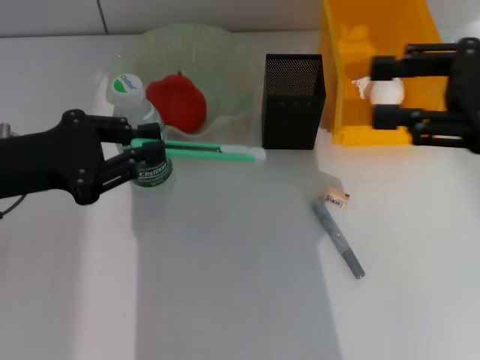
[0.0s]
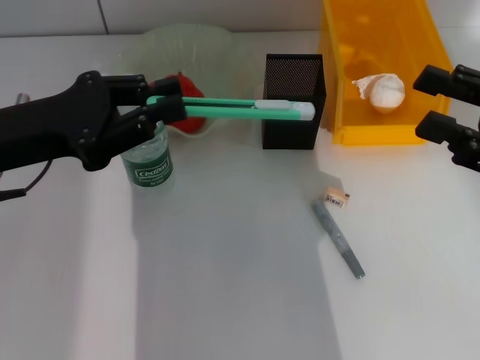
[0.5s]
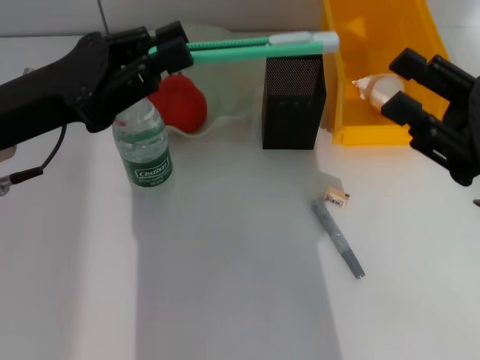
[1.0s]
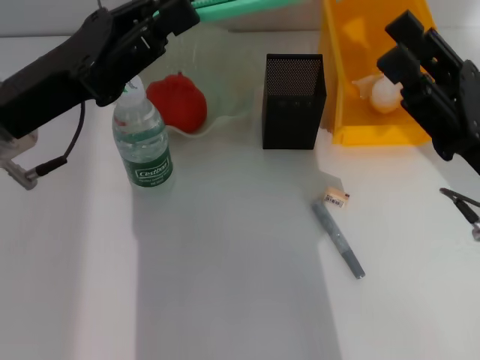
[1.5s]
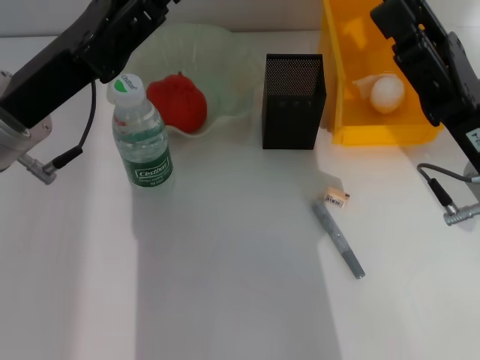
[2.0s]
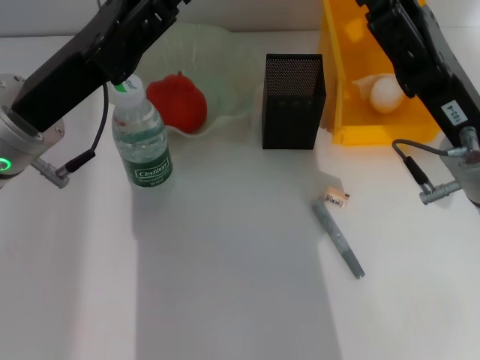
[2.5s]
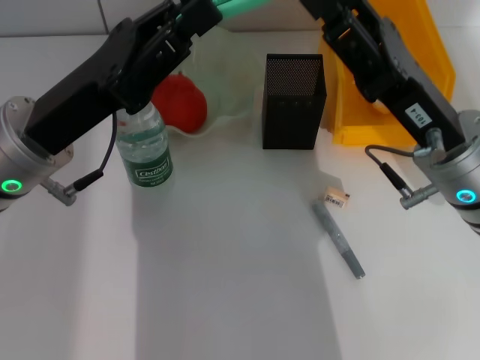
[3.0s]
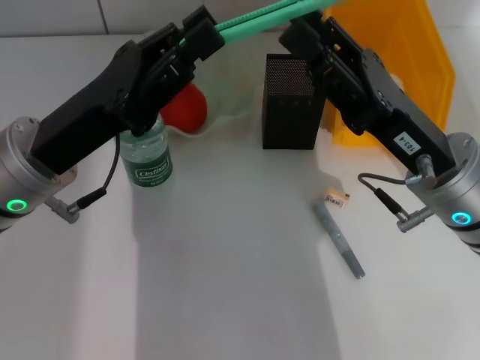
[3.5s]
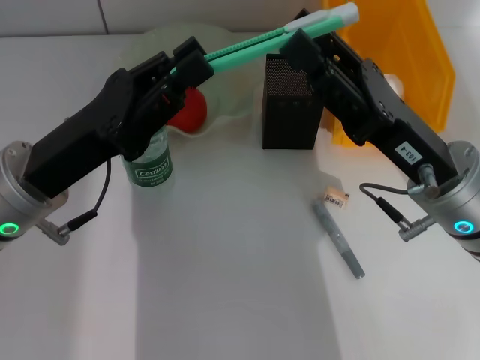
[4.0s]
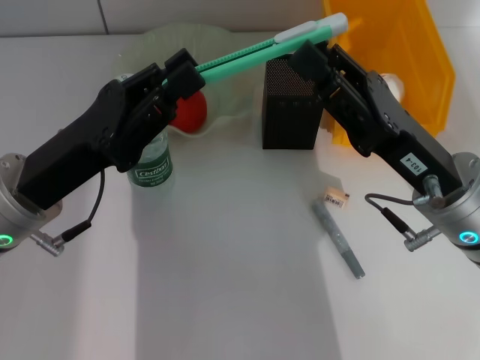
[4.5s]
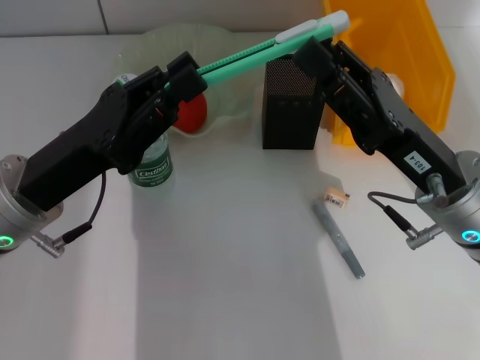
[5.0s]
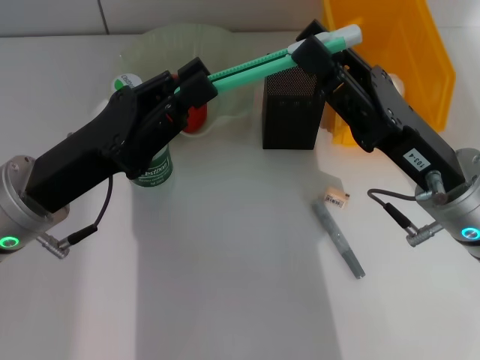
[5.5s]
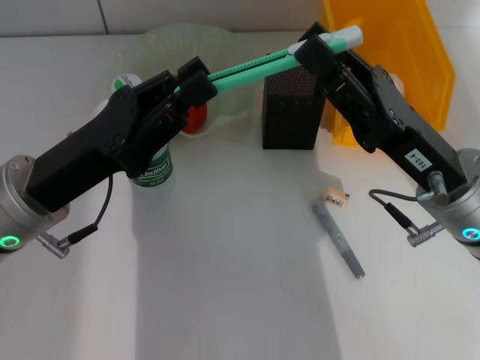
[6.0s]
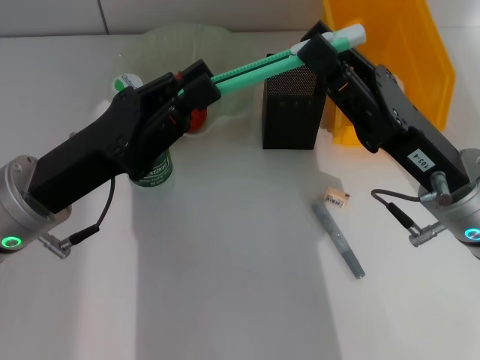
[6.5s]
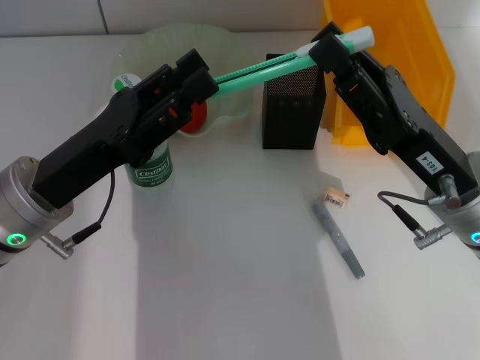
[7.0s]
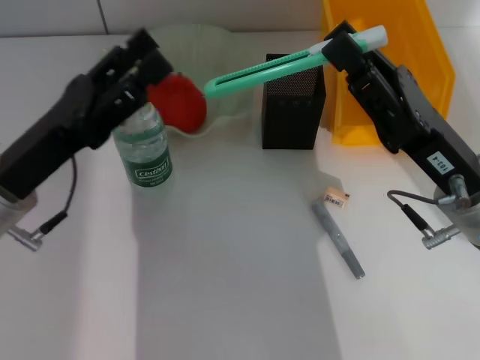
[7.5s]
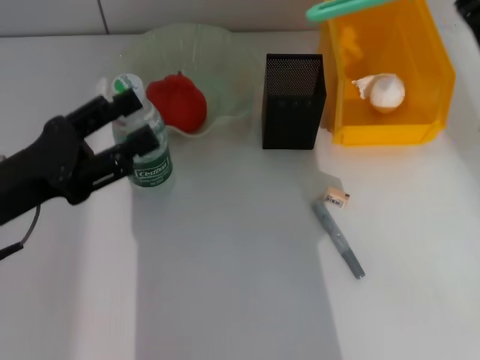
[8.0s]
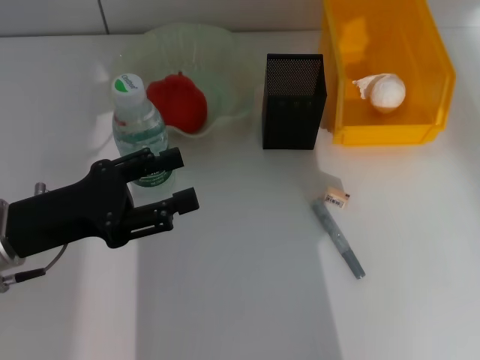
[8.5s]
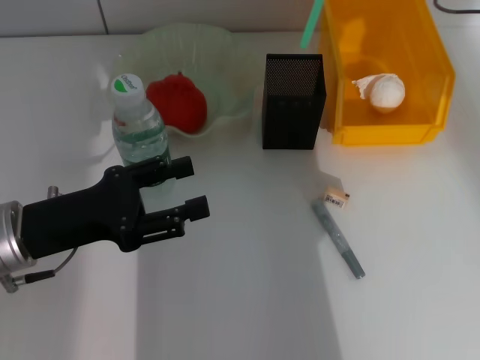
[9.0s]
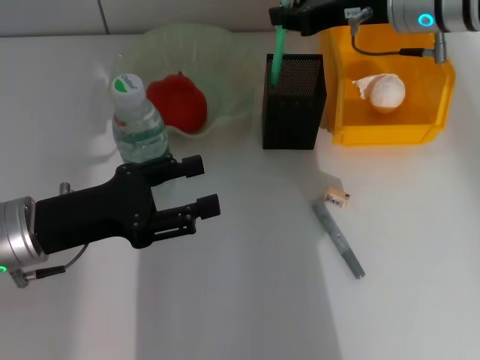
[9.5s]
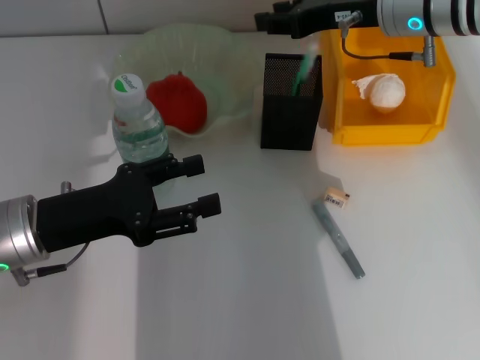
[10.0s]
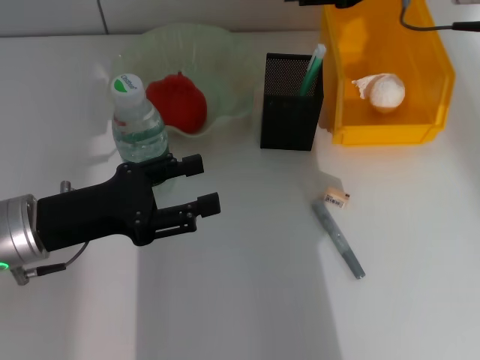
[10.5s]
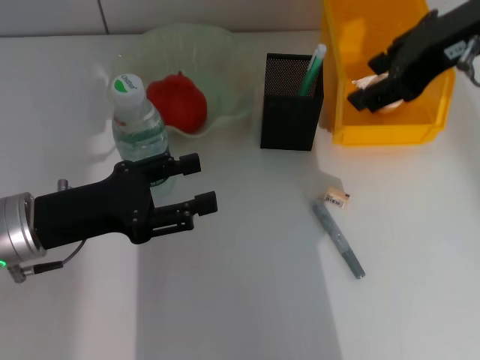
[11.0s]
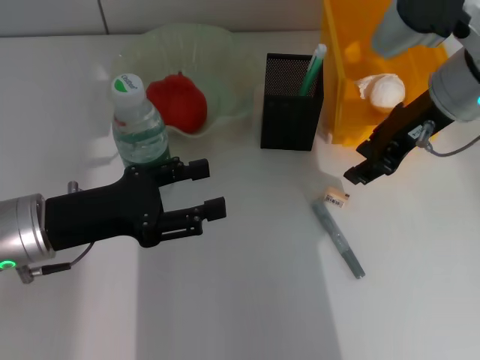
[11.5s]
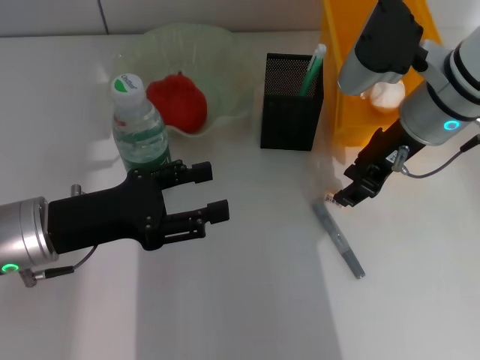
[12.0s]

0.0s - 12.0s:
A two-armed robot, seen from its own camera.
Step, 0.0s - 7.0s: Pass the blue utility knife from the left hand to the right hand.
Step, 7.5s - 10.0s: Place the blue utility knife into the pen holder with the right hand.
0.0s - 2.0s: The right gripper moves downward and to the left, about 15 cm. The left gripper travels to the right by approximately 5 cm.
2.0s - 4.0s: The left gripper changes place by approximately 5 cm.
4.0s - 6.0s: The right gripper closes.
6.0s - 8.0s: The left gripper goes roughly 5 cm to the left, and opens up, while the right gripper heads to the right, covering approximately 10 cm.
8.0s - 10.0s: The right gripper is displaced forward and to the left by approximately 15 cm.
10.0s - 12.0s: The right gripper moves backward, approximately 5 cm, and moves roughly 10 cm upward and comes back.

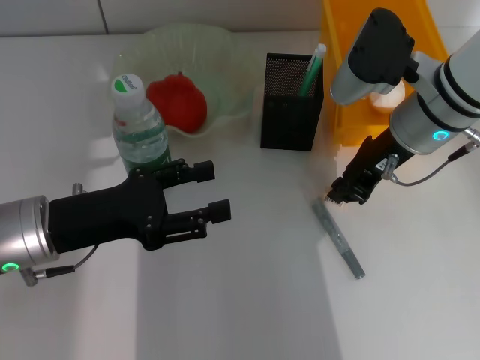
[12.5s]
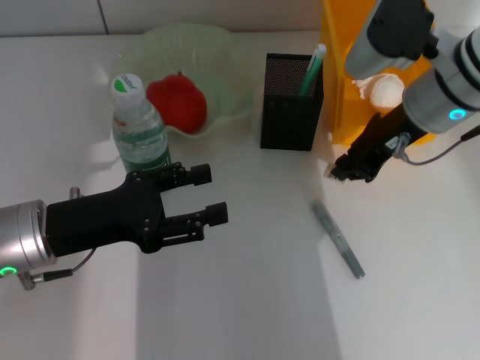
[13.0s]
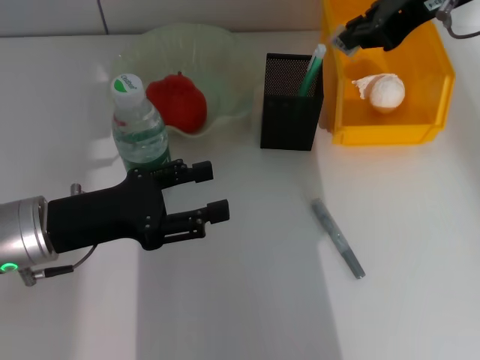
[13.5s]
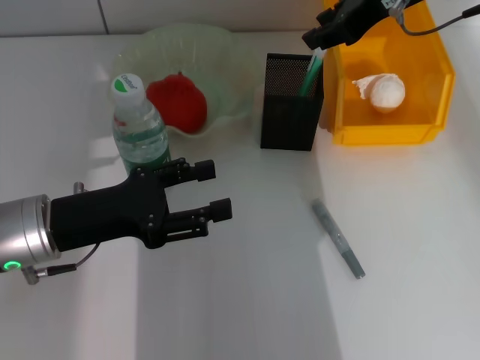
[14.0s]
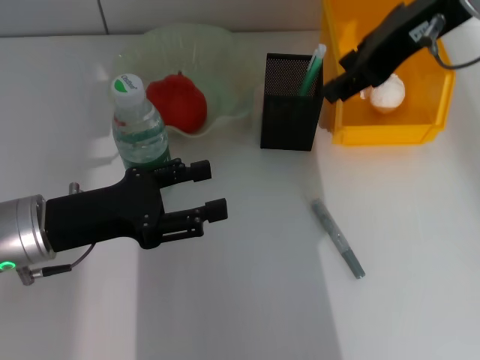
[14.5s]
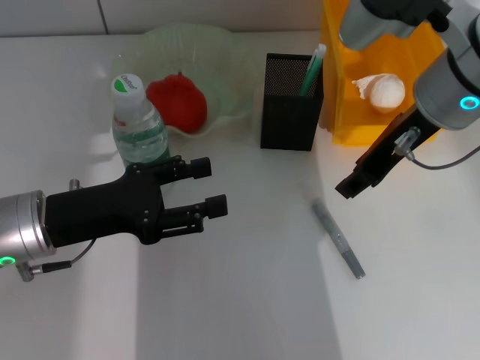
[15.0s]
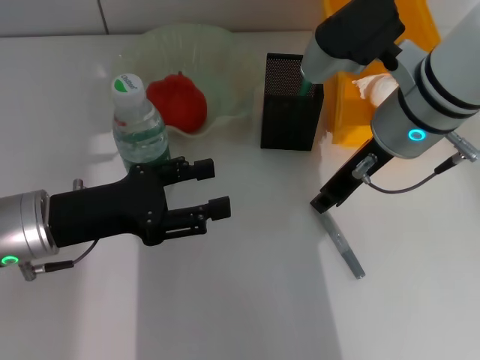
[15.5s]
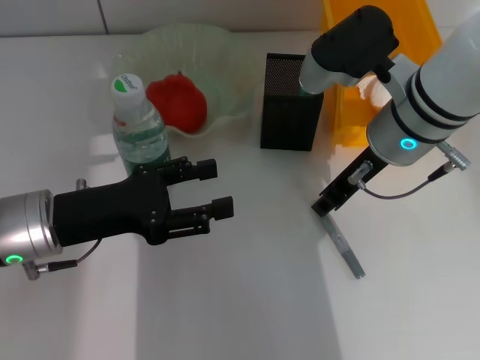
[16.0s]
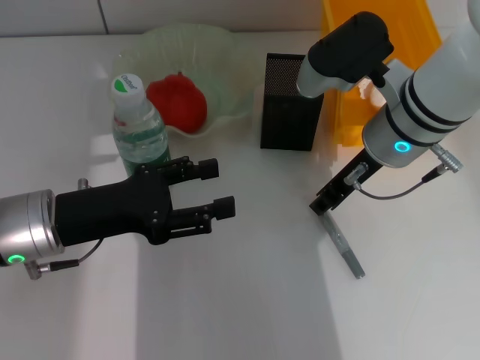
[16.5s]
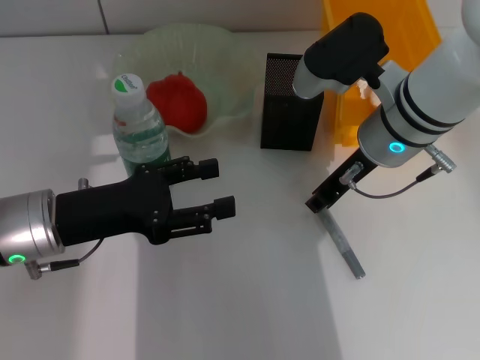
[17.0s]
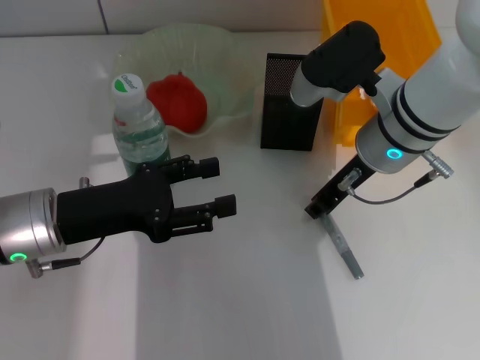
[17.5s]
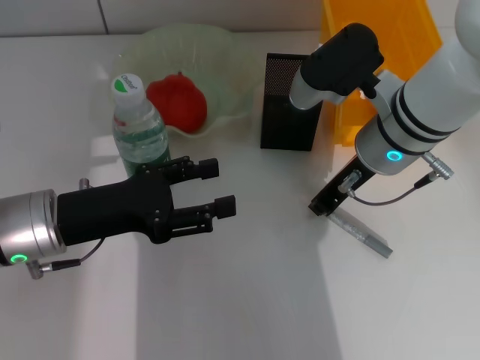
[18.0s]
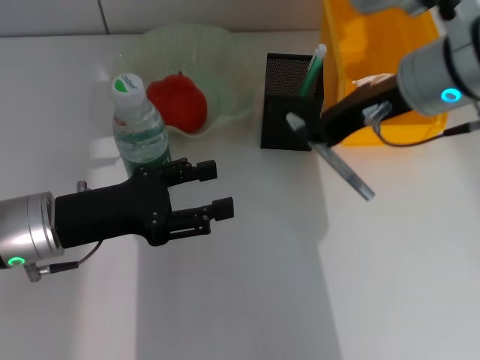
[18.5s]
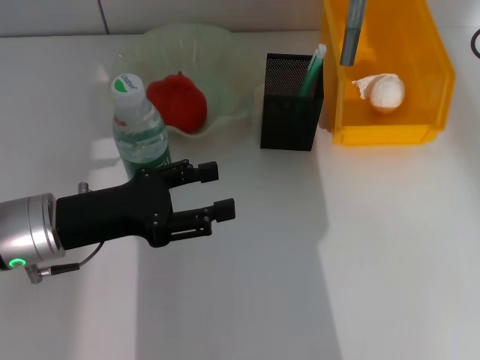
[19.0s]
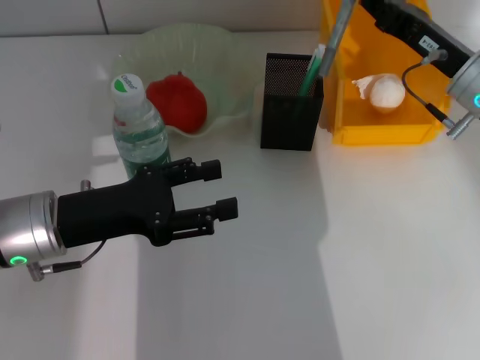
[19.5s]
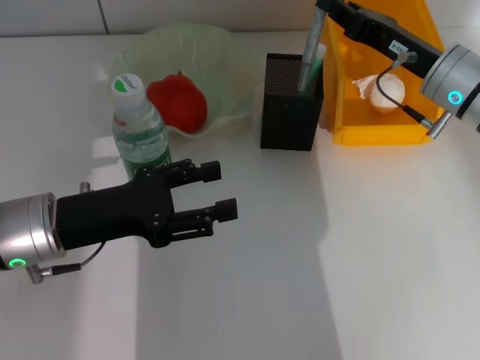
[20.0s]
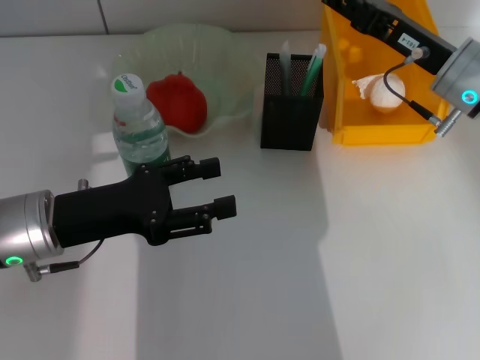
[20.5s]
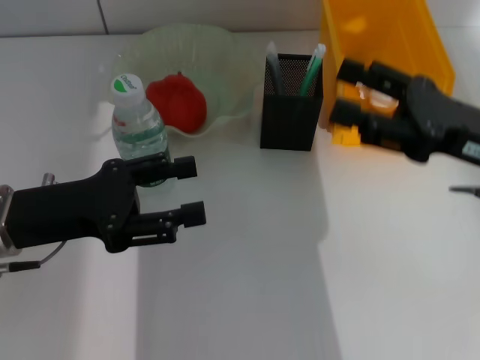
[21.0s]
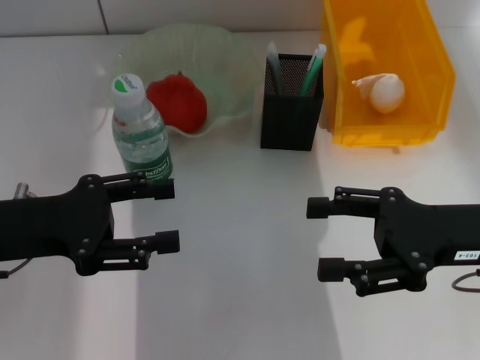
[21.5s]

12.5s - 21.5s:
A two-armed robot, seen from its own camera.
Step, 13.0s - 14.0s: Put the eraser into the pen holder with the right hand.
Step, 14.5s - 17.5s: Grab the gray glue with the right hand.
Step, 18.0s - 20.5s: Place the gray glue into the pen holder with the right hand.
12.5s - 14.5s: The right gripper moves upward, roughly 15 cm, and opens its fingers.
14.5s - 17.0s: The right gripper is displaced downward by roughly 15 cm.
17.0s - 19.5s: The right gripper heads to the right, covering about 10 cm.
19.5s - 21.5s: The right gripper is displaced backward by approximately 10 cm, and opens. Meanwhile the left gripper moves approximately 5 cm.

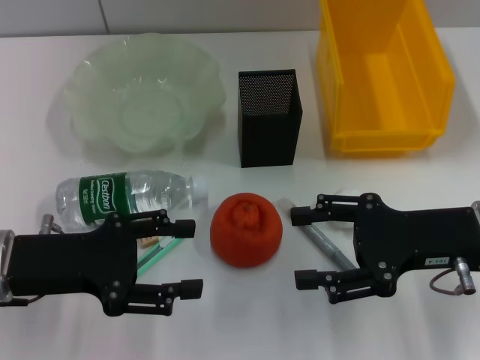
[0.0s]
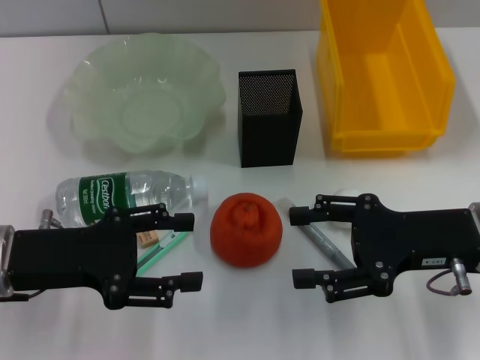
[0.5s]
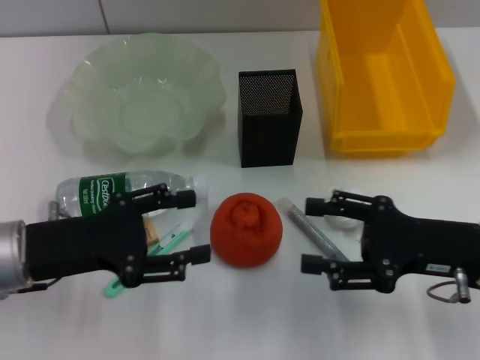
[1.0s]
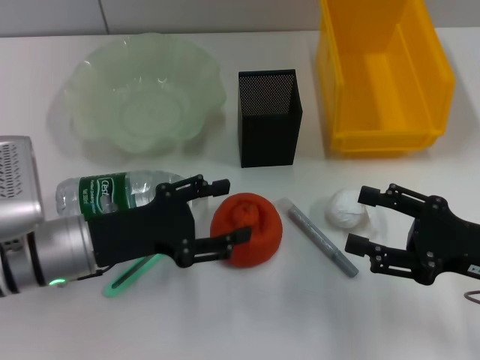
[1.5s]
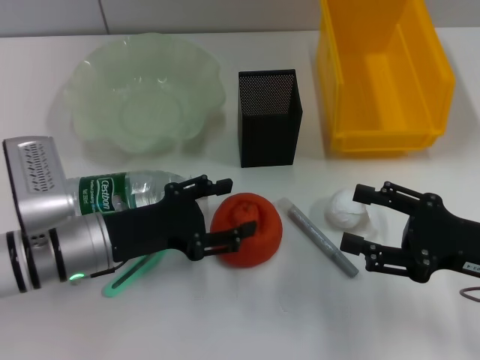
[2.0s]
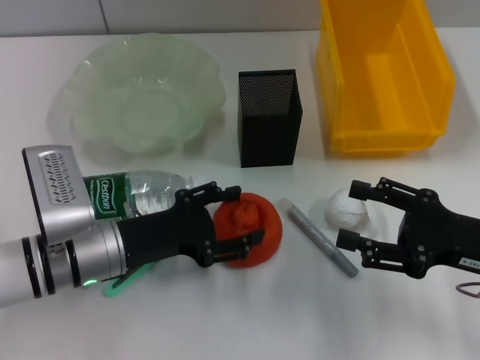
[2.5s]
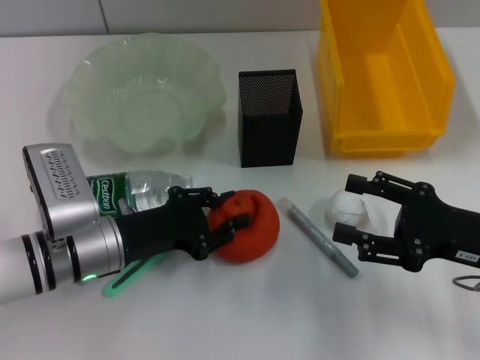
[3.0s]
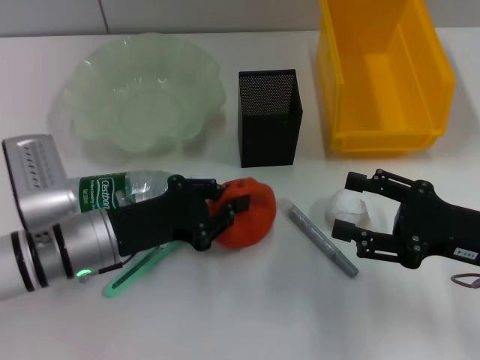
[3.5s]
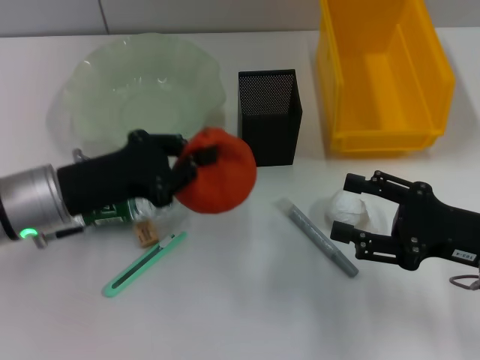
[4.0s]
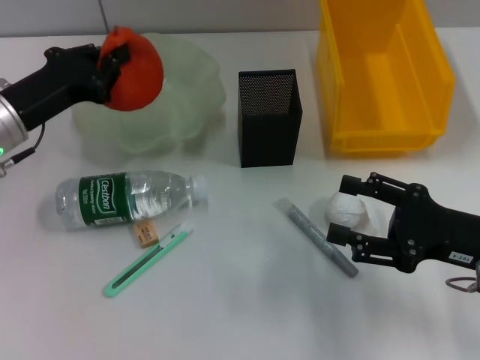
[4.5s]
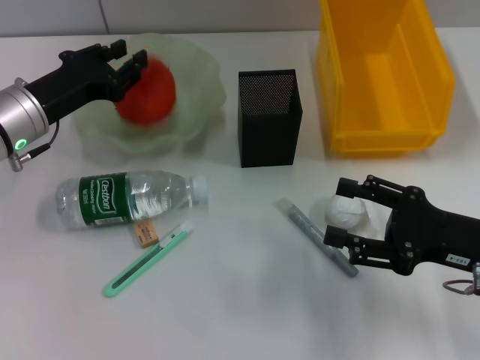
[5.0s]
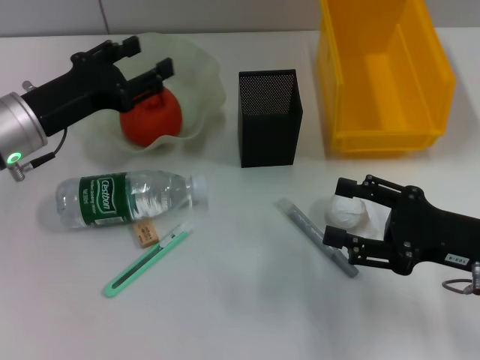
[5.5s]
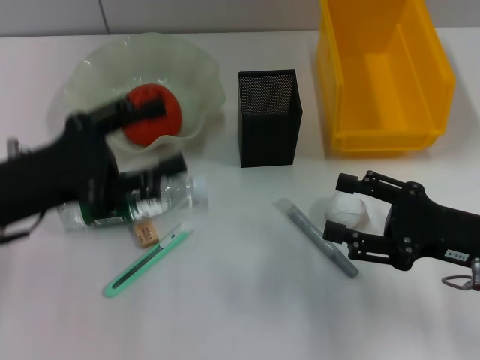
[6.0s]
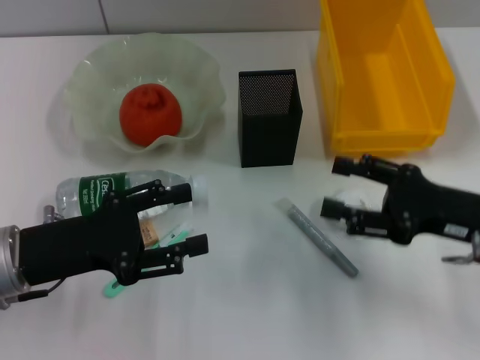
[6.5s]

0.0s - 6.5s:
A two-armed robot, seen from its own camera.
Step, 0.0s - 3.0s: Grab the orange with the left hand.
Step, 3.5s - 5.0s: Place the orange into the fruit bowl with the left hand.
0.0s - 2.0s: The right gripper shifts by some 5 cm, while the left gripper travels downward and to the right by about 10 cm.
2.0s - 4.5s: The left gripper shifts approximately 10 cm forward, to the left and upward, and closes.
4.5s - 6.5s: The left gripper goes about 10 cm backward, and opens.
